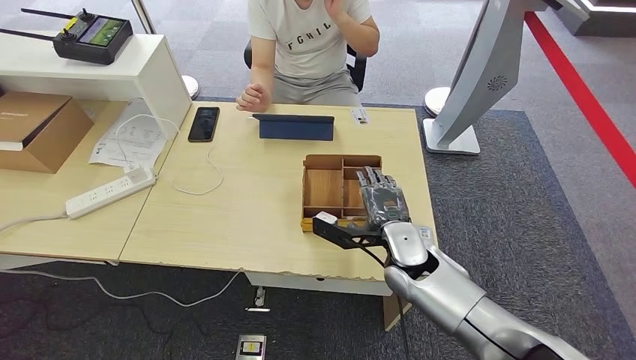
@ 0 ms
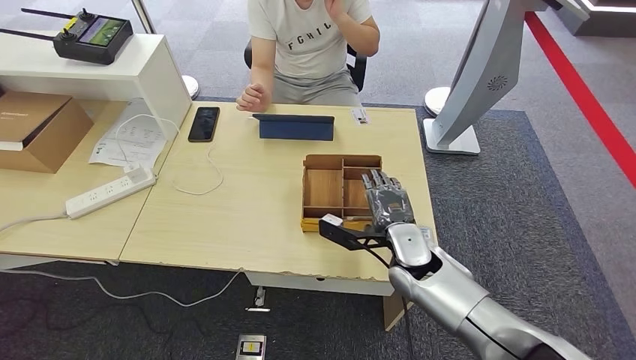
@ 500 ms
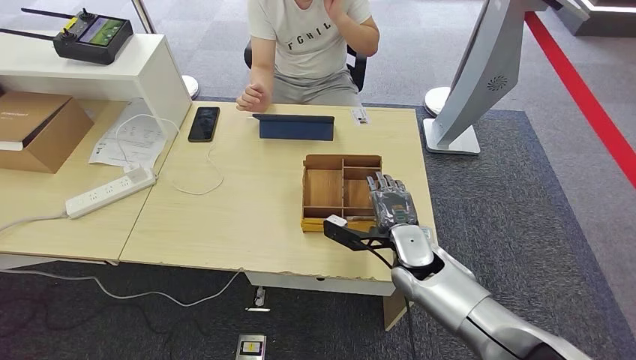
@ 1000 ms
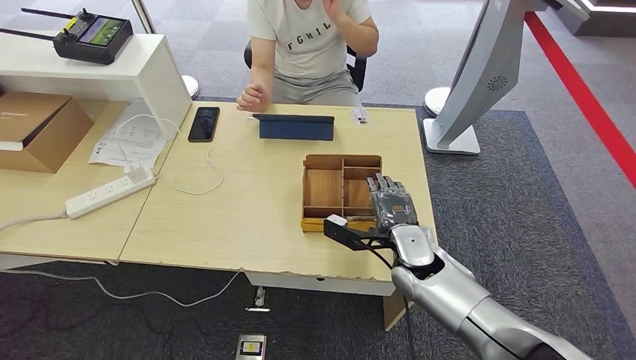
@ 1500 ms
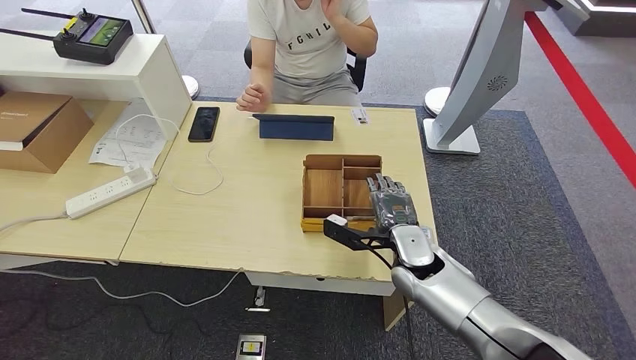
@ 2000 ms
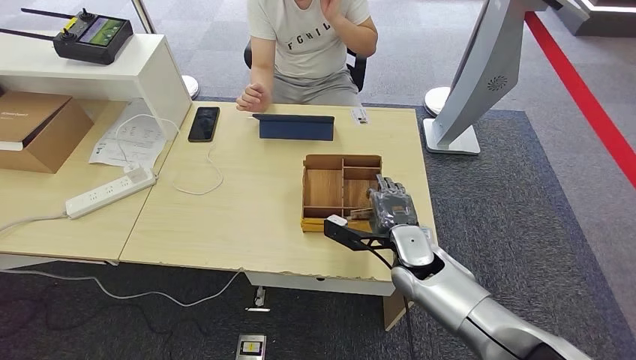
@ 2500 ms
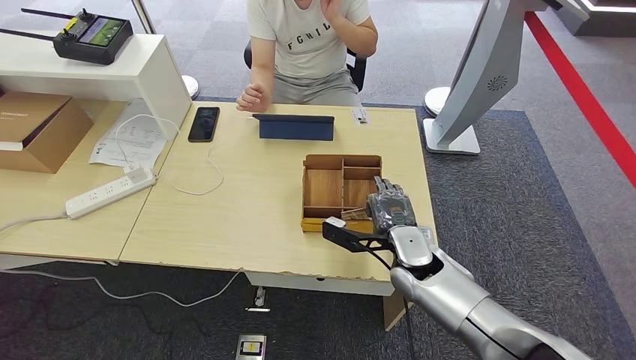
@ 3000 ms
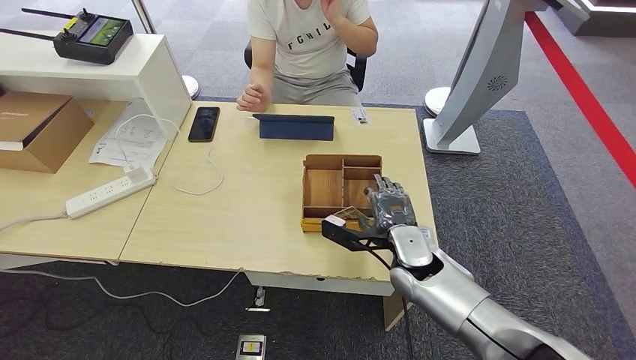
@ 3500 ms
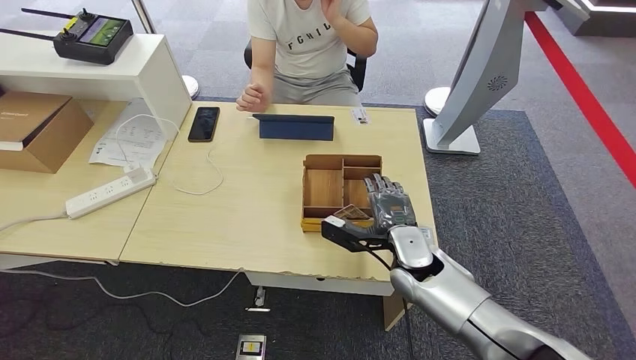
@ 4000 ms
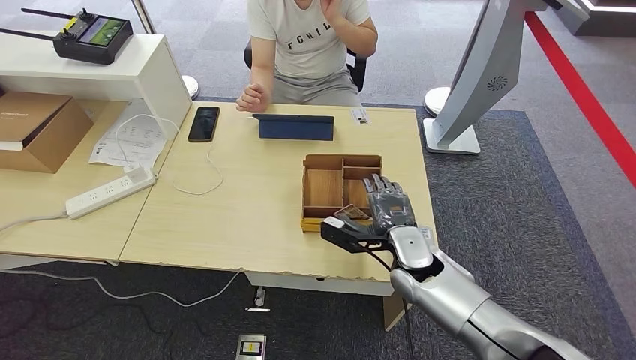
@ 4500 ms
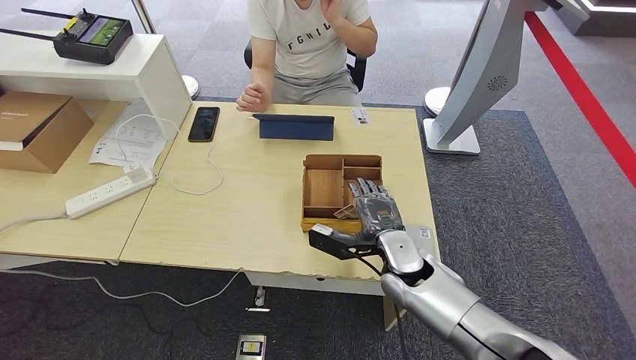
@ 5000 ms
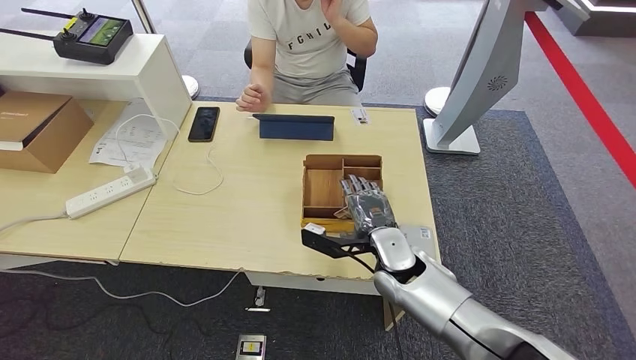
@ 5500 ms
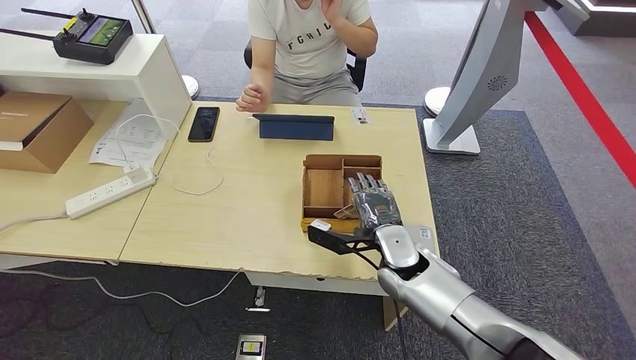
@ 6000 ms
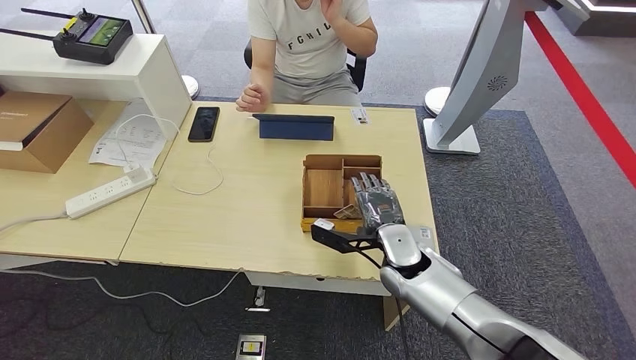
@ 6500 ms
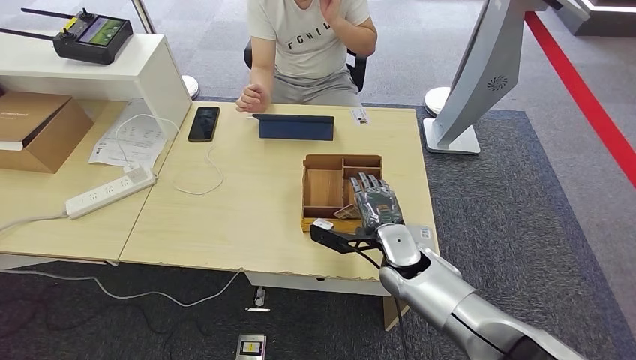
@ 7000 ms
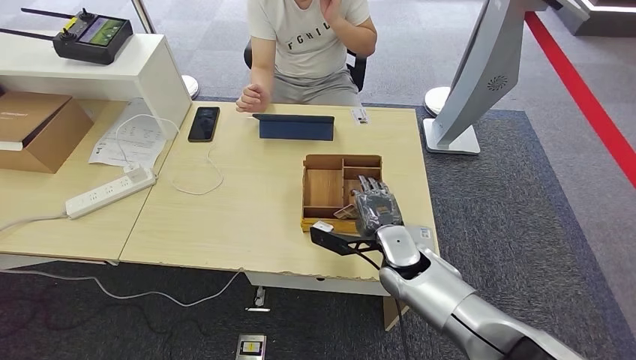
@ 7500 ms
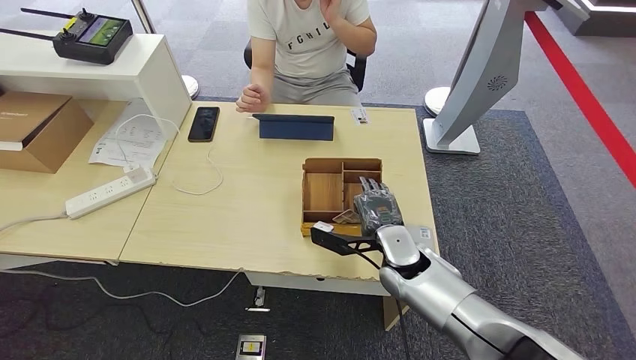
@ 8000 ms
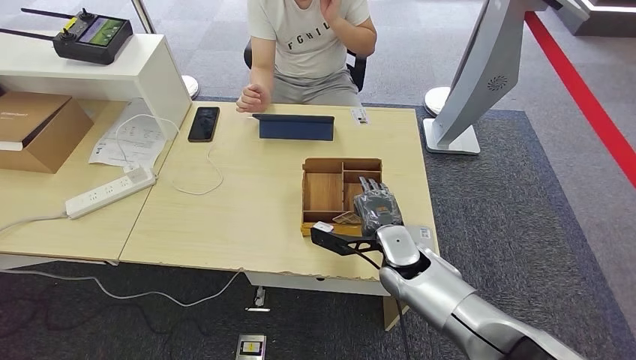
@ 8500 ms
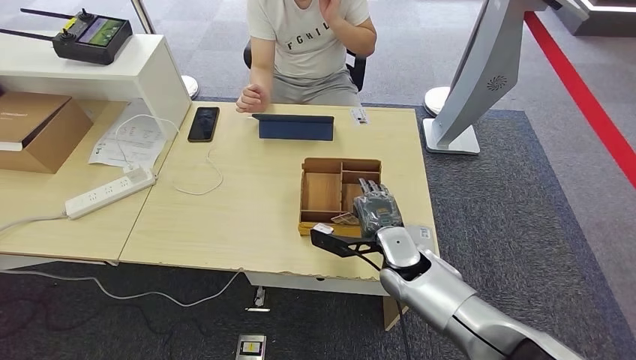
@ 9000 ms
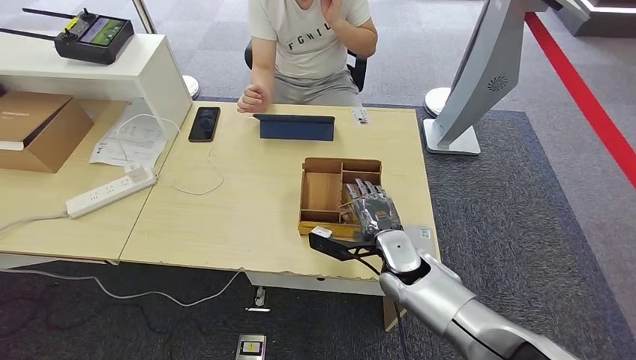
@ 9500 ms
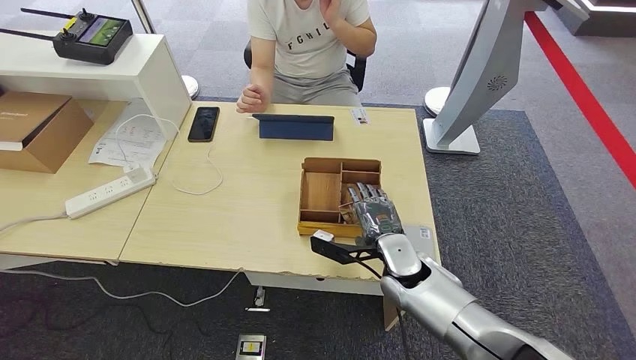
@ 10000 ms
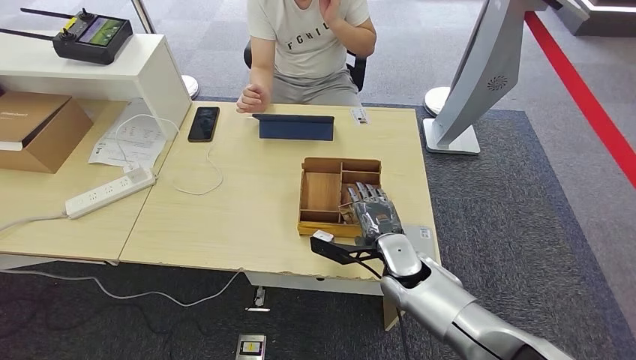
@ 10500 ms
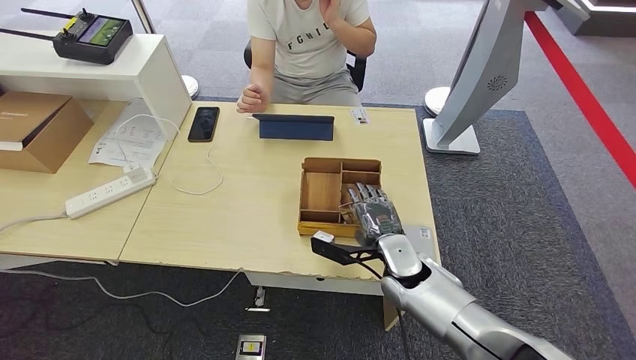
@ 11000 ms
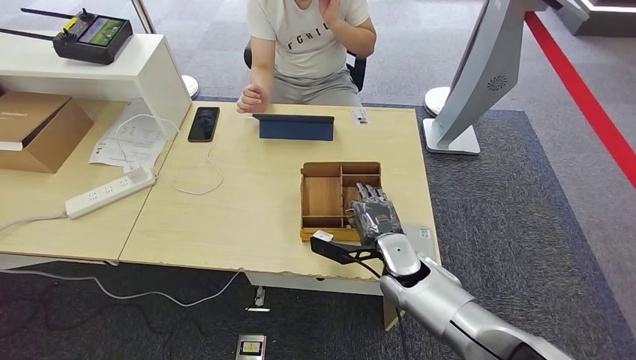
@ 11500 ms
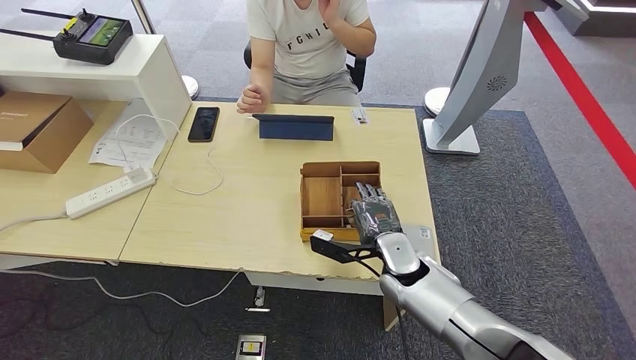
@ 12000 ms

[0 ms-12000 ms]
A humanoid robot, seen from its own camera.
0 ms to 2000 ms: The hands make only small movements.
2000 ms to 4000 ms: Both hands stay put.
4000 ms to 6000 ms: The hands make only small movements.
6000 ms to 8000 ms: Neither hand changes place.
8000 ms to 10000 ms: The hands stay close to where they were, moving slightly.
10000 ms to 12000 ms: Both hands stay put.

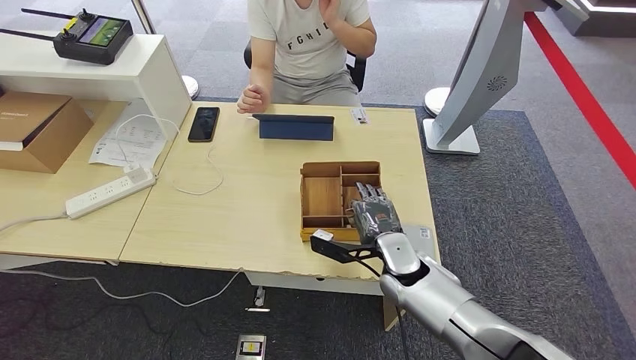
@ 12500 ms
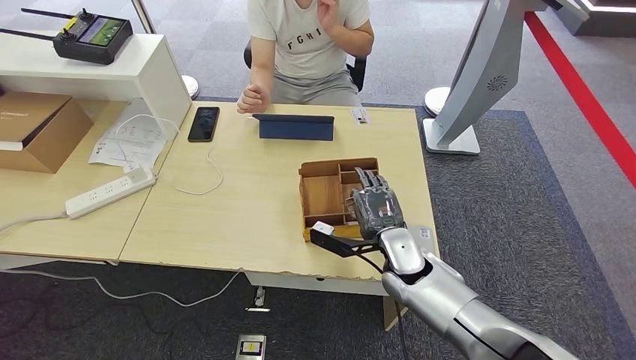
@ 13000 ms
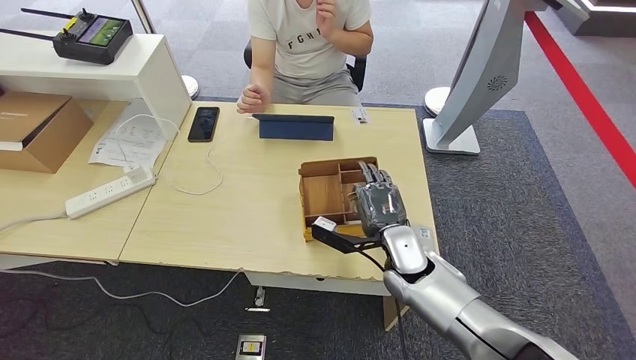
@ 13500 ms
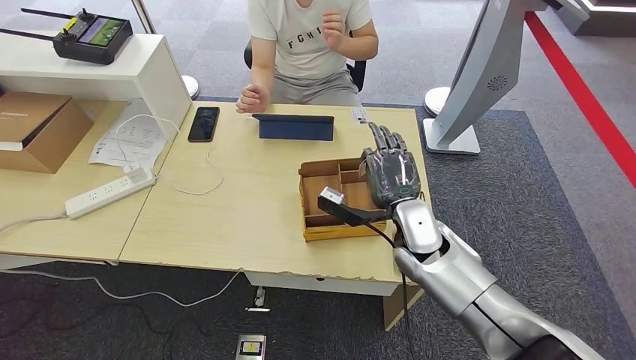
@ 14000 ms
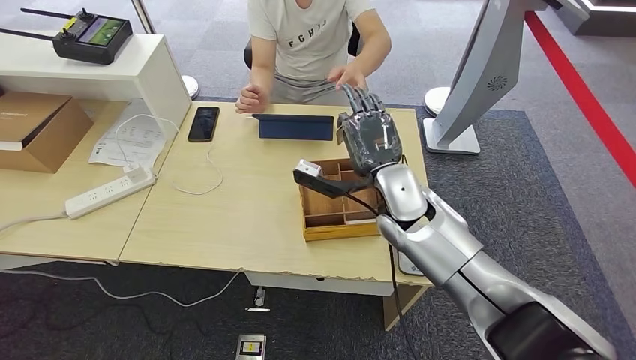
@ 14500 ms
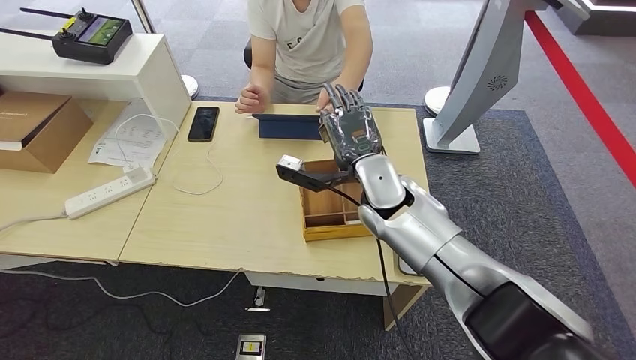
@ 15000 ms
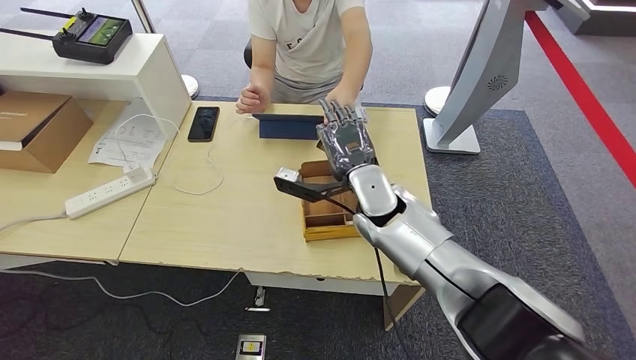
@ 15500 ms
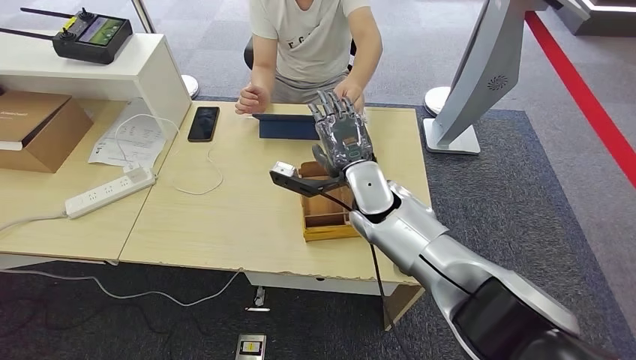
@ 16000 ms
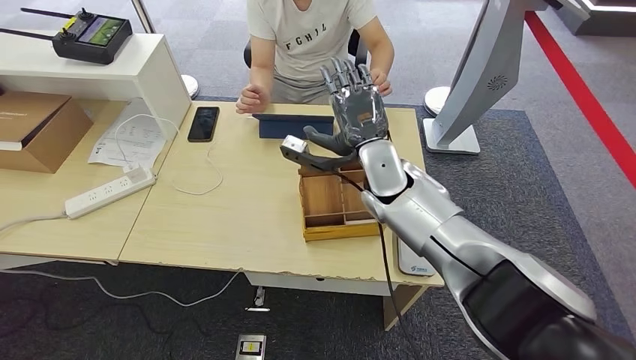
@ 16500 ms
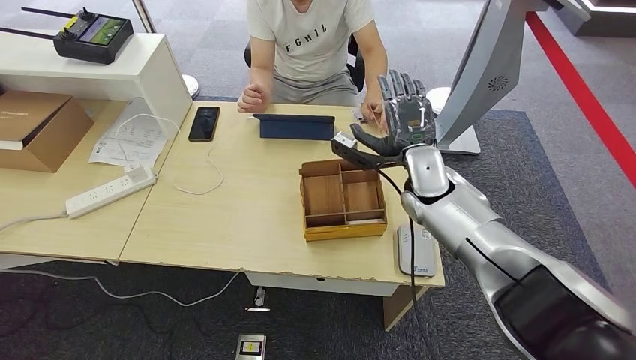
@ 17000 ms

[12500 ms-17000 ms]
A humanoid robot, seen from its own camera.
Step, 14500 ms to 17000 ms: Hand the room key to the person.
12500 ms to 14500 ms: The right hand travels upward and forward by approximately 15 cm.
14500 ms to 17000 ms: The left hand travels to the left by roughly 5 cm, while the right hand heads to the right, covering approximately 5 cm.
